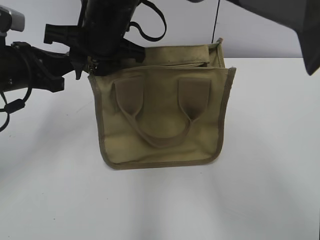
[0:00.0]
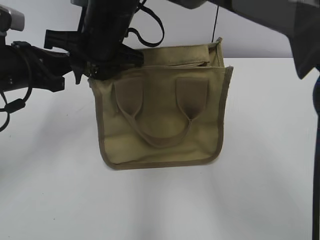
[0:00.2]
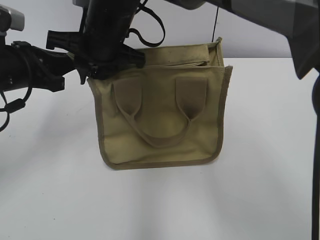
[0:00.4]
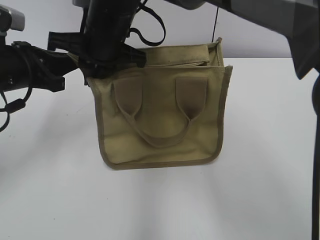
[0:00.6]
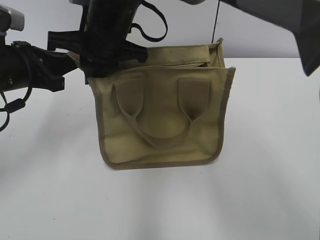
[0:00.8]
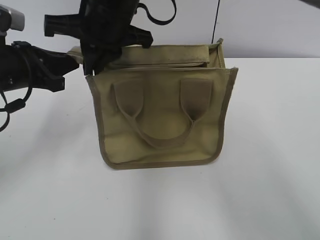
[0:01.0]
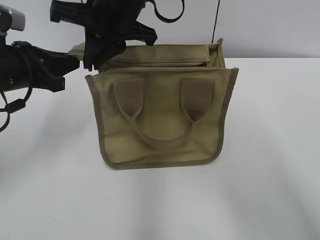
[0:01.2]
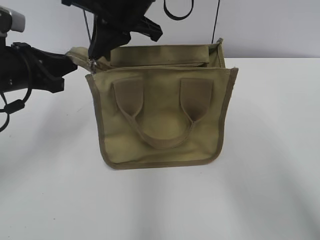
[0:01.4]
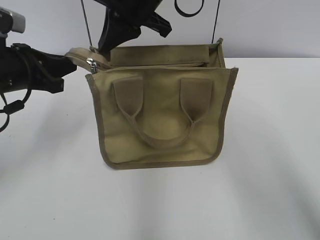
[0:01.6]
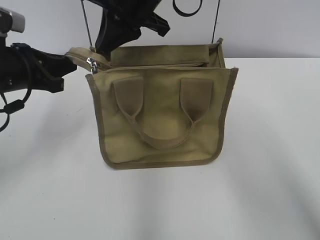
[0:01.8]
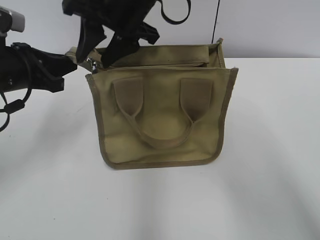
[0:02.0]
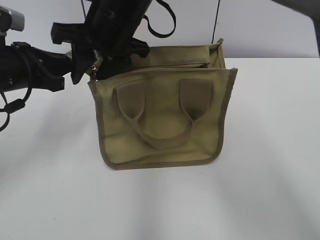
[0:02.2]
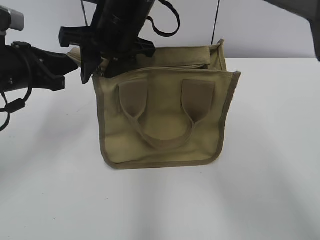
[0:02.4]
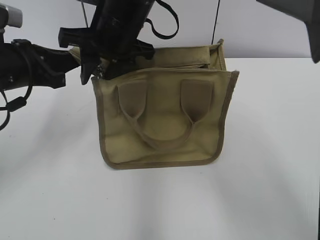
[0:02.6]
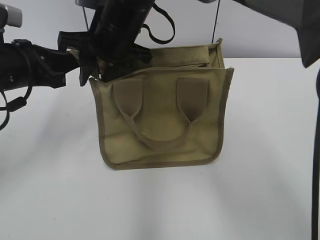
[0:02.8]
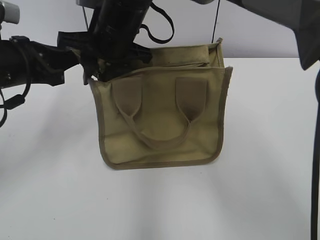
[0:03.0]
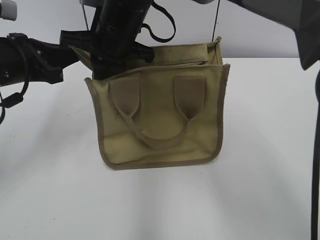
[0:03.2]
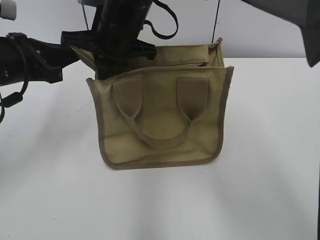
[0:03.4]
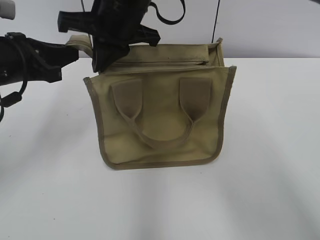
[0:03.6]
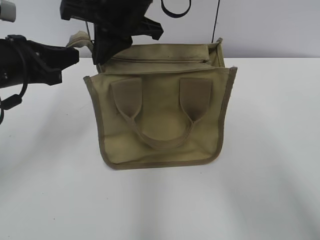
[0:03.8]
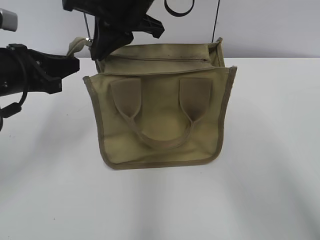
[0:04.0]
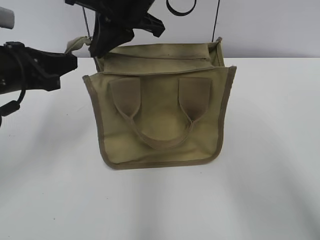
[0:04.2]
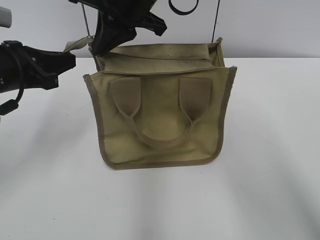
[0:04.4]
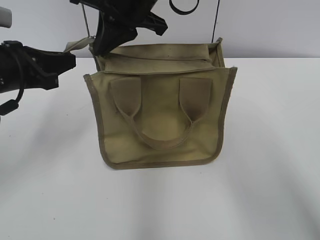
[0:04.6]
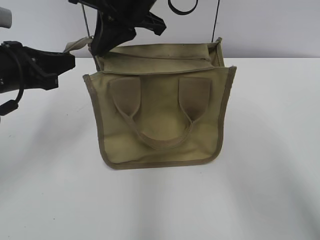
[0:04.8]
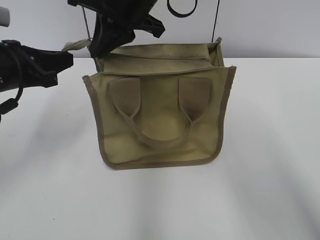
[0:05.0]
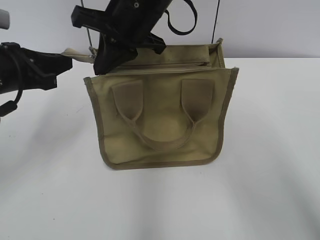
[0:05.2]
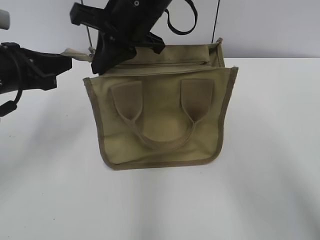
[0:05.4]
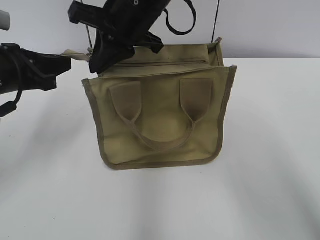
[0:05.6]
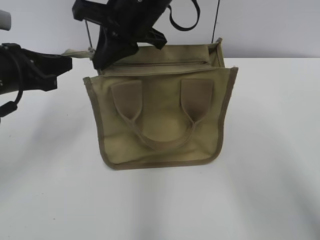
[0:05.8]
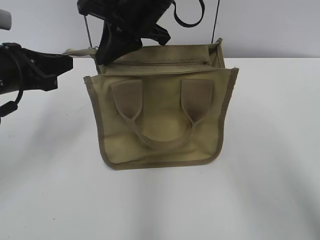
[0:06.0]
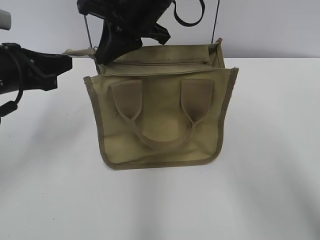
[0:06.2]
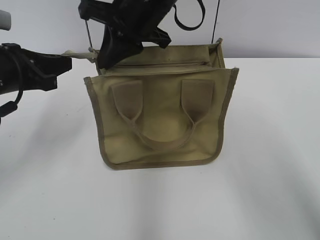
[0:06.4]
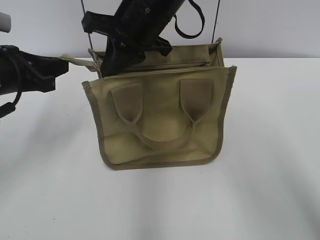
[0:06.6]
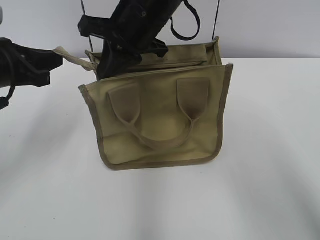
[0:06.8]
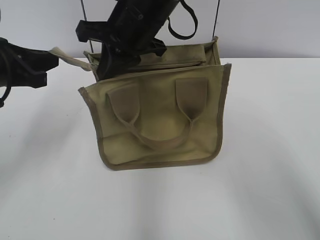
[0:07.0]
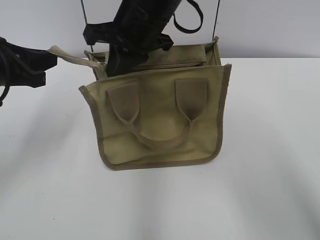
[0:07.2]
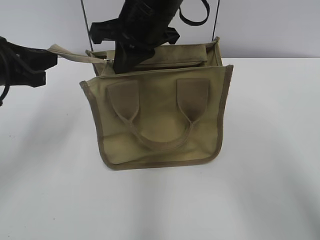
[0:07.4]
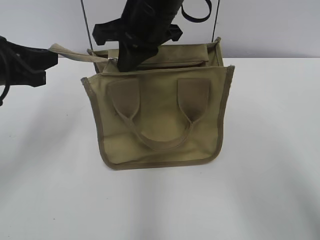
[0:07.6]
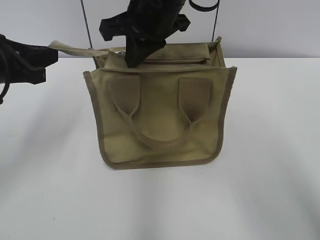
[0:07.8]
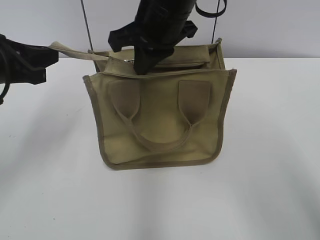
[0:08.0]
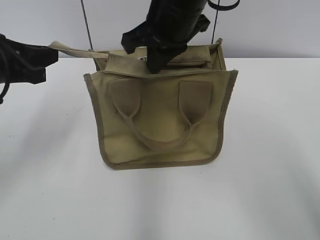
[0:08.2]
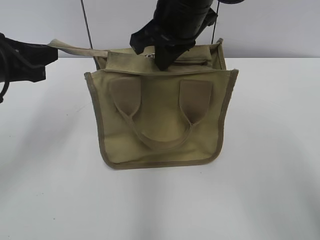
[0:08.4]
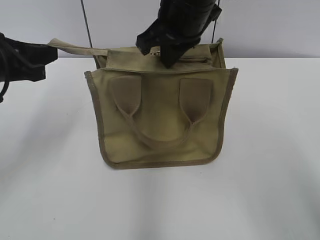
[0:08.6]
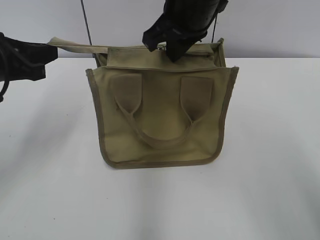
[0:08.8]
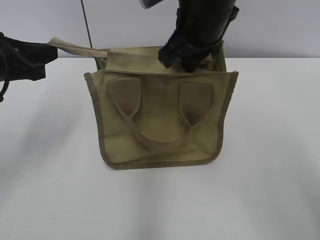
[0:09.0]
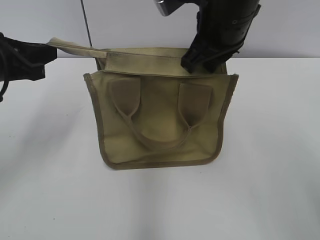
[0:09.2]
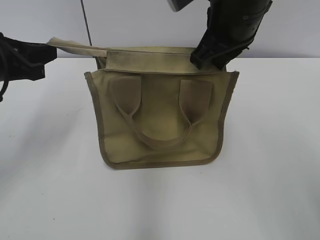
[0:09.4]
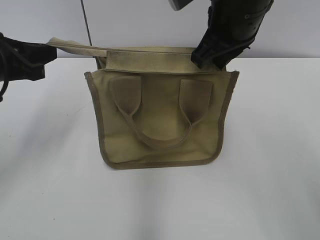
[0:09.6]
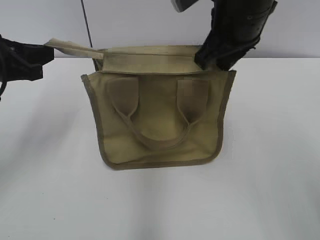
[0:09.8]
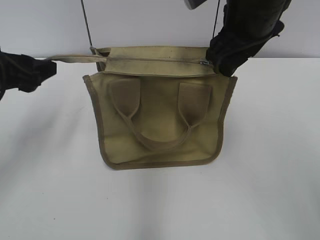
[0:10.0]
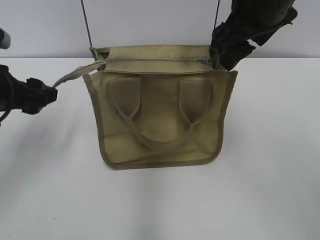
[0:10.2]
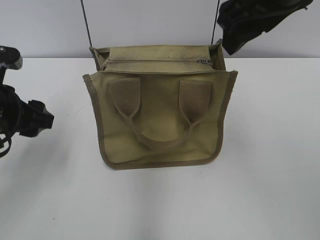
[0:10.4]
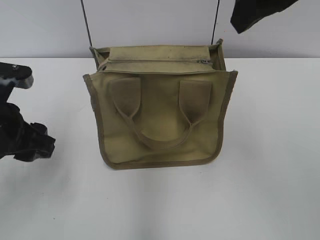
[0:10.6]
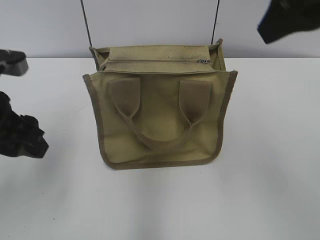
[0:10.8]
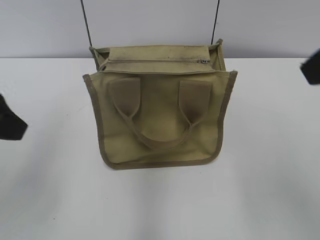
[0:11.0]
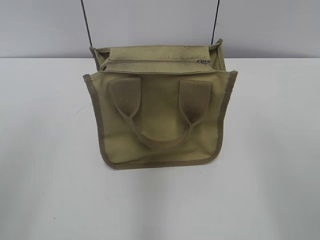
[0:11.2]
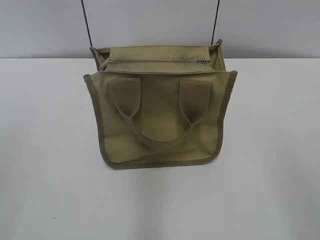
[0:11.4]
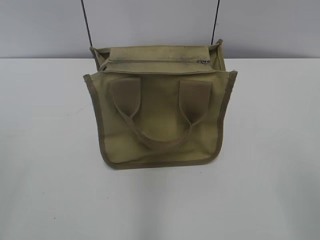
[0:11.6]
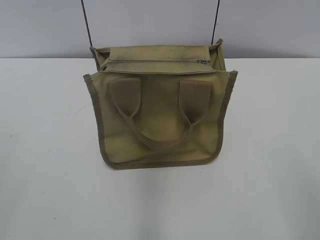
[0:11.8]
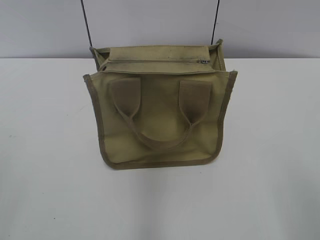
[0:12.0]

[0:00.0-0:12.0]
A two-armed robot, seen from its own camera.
Step, 0:00.0 to 0:09.8: Zip up the bag with your right hand.
Step, 0:10.0 to 0:10.2: Grab the zipper with your left hand.
0:00.0 to 0:01.6: The right gripper moves to the right, about 5 cm, and closes its fingers.
0:01.6 to 0:03.0: The right gripper shifts approximately 5 cm downward, and opens up.
0:03.0 to 0:04.4: The right gripper heads upward, covering roughly 5 cm, and closes up.
0:04.4 to 0:07.6: The grippers stay close to where they were, moving slightly.
0:07.6 to 0:09.0: The right gripper heads to the right, covering roughly 5 cm.
0:09.0 to 0:10.4: The right gripper shifts approximately 10 cm to the right and upward, and opens; the left gripper changes place by some 5 cm, and opens up.
0:10.4 to 0:12.0: The left gripper shifts some 25 cm backward. The right gripper shifts approximately 30 cm backward and to the right.

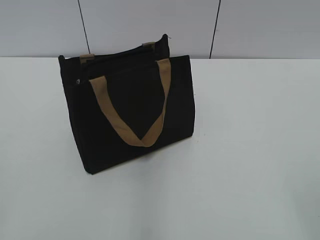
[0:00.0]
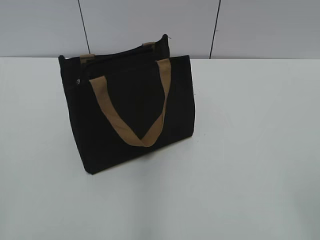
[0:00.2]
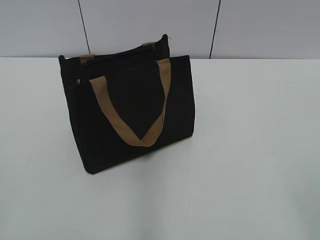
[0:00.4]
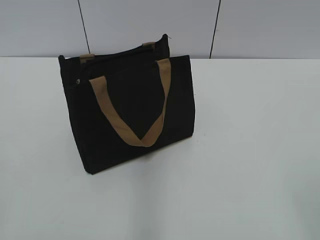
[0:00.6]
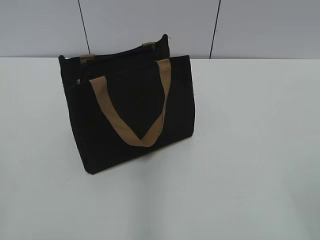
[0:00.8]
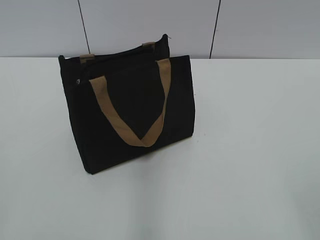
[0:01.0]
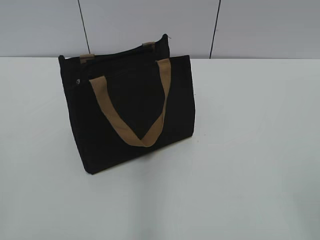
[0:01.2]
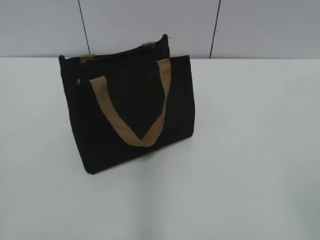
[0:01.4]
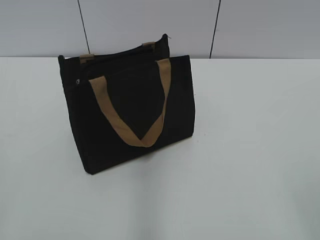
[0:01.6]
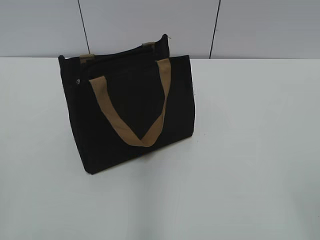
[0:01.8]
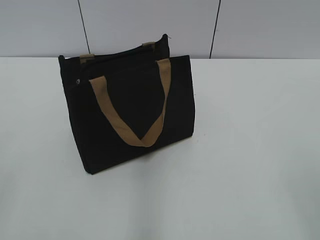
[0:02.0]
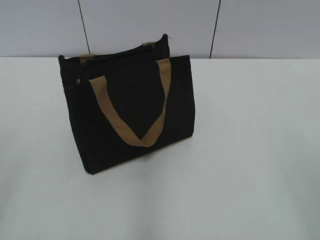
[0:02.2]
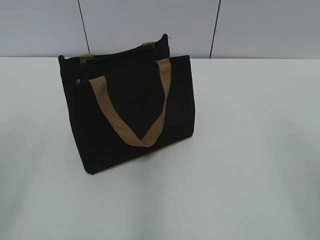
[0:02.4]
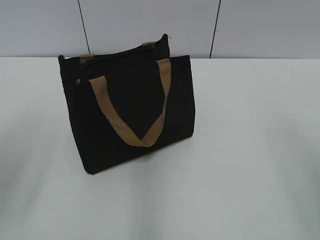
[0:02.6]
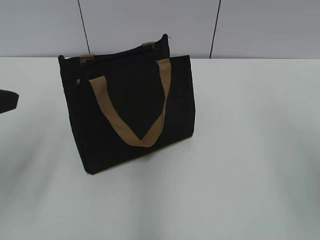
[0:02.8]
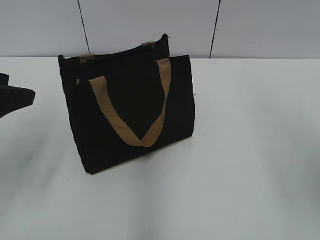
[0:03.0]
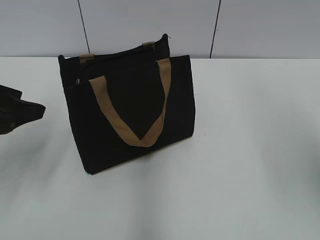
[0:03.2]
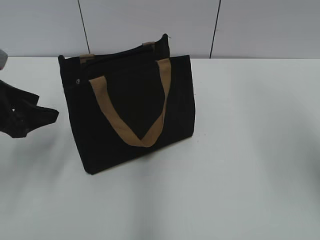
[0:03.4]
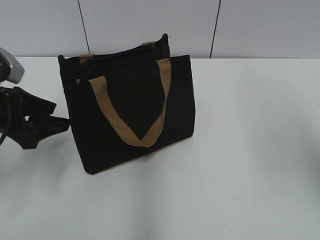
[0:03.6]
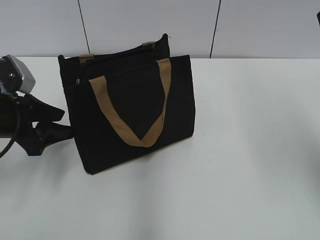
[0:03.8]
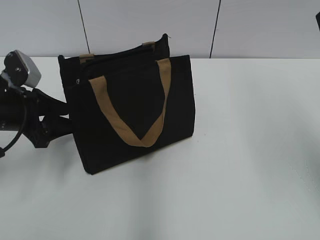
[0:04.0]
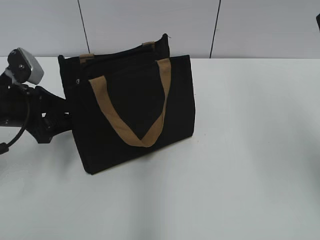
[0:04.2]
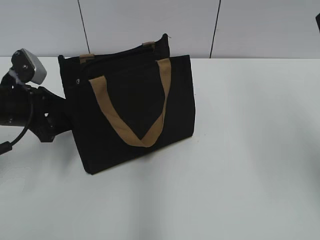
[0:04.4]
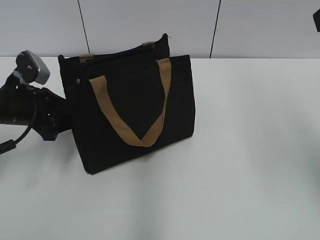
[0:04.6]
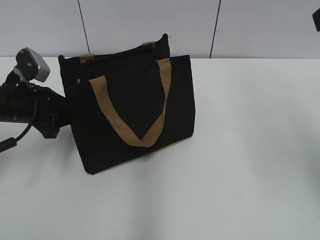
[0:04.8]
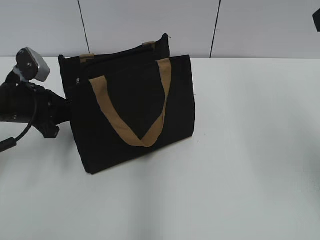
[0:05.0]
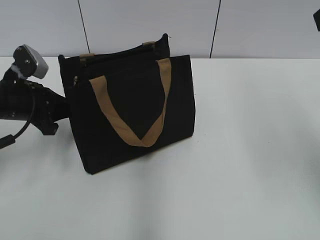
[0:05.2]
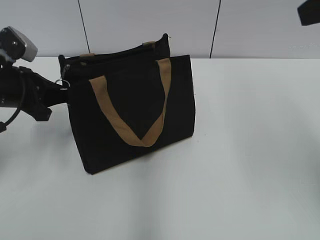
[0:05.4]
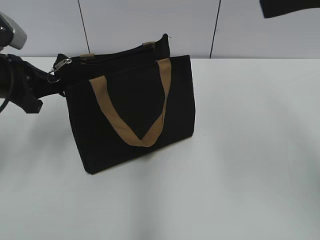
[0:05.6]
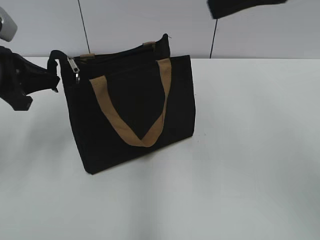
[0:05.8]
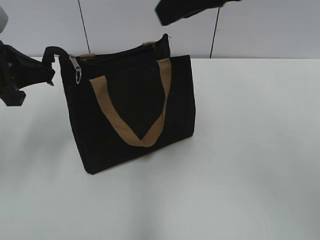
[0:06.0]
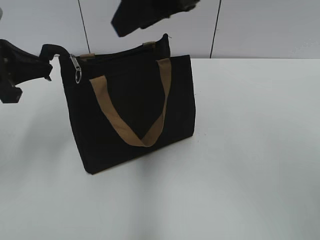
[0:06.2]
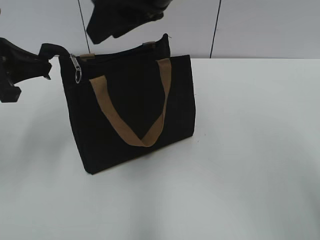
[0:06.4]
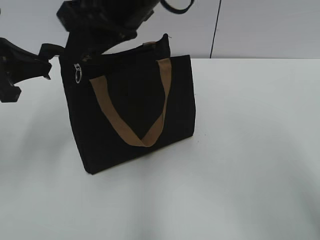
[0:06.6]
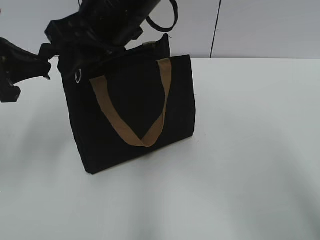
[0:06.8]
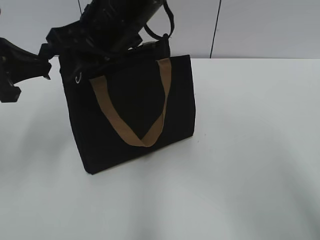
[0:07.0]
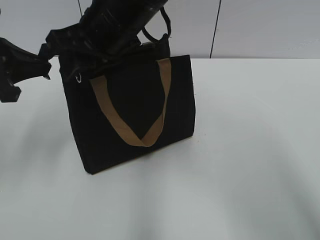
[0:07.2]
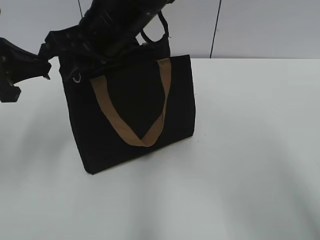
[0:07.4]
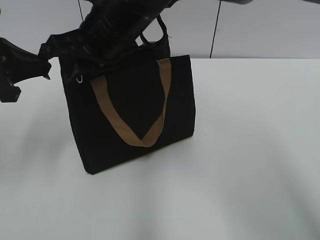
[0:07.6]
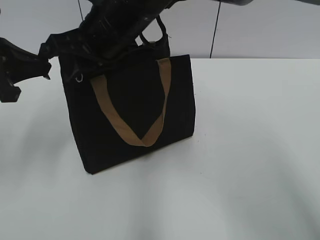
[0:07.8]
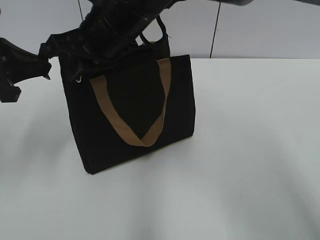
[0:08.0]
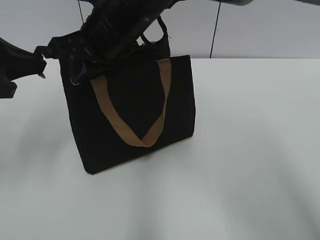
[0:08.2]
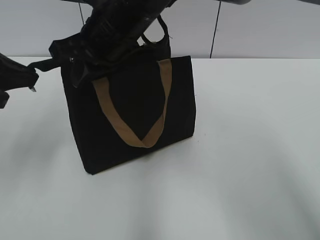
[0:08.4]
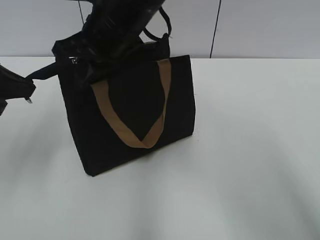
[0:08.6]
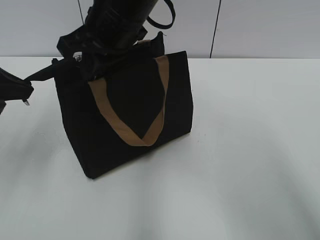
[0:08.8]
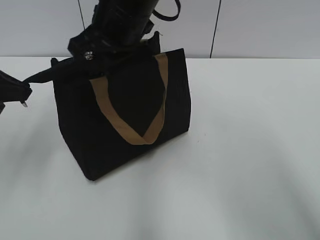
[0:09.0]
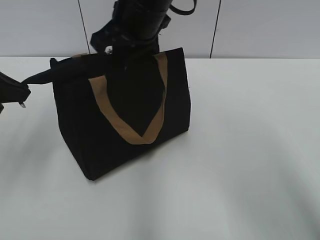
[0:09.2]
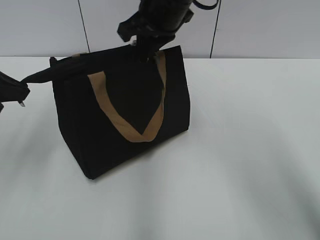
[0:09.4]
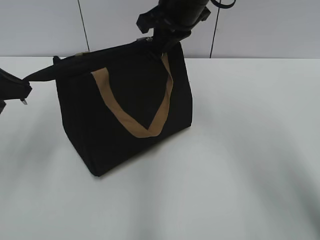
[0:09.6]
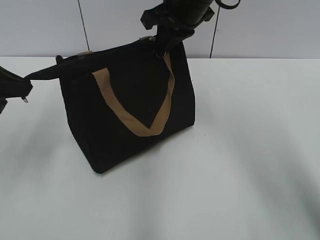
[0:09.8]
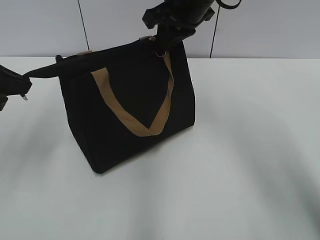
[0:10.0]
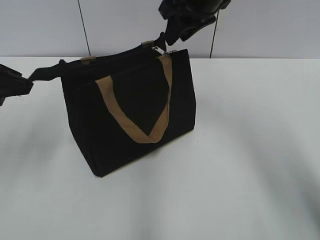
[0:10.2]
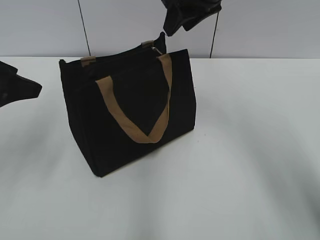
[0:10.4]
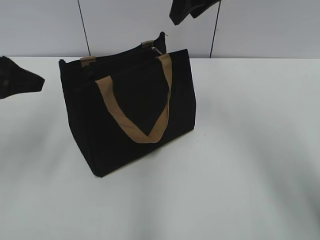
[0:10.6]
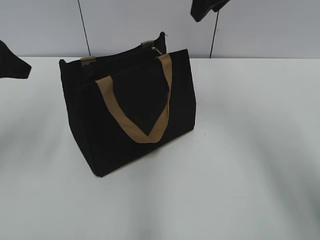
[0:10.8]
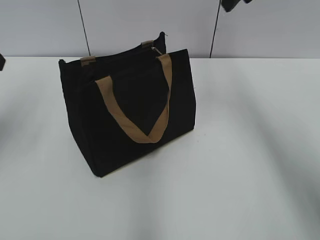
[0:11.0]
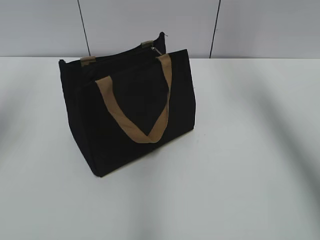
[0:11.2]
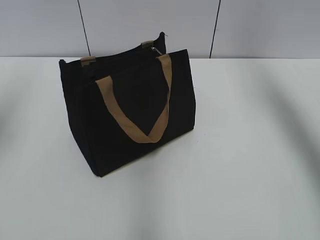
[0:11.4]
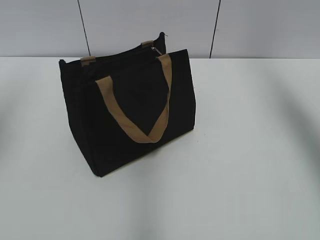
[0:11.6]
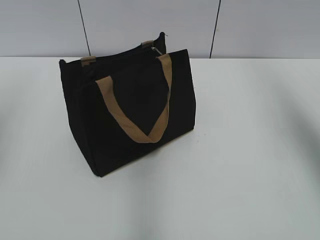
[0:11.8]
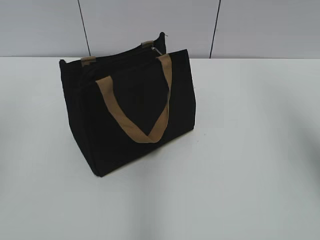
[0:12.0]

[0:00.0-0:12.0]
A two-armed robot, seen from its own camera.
Step, 0:00.0 to 0:10.0: Zip up the bag with your right hand.
0:01.6 to 0:03.0: The left gripper moves forward, some 20 cm, and opens up.
0:03.0 to 0:04.4: The left gripper heads downward and forward, covering about 15 cm. Meanwhile the right gripper is displaced forward by some 5 cm.
0:04.4 to 0:06.0: The right gripper heads to the left, covering approximately 15 cm; the left gripper heads upward, covering approximately 10 cm, and closes up.
0:06.0 to 0:07.6: The right gripper travels to the left, downward and forward by approximately 20 cm.
0:07.6 to 0:09.0: The right gripper closes its fingers.
0:09.0 to 0:10.4: The right gripper moves to the right and forward, about 15 cm, and opens up; the left gripper opens up.
0:10.4 to 0:12.0: The right gripper goes about 25 cm to the right, backward and upward; the left gripper goes about 10 cm upward, backward and to the left.
